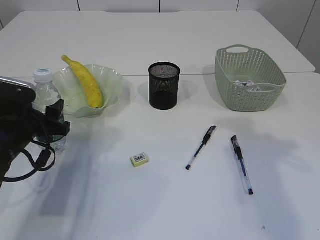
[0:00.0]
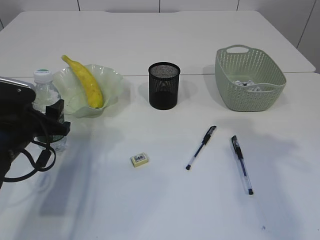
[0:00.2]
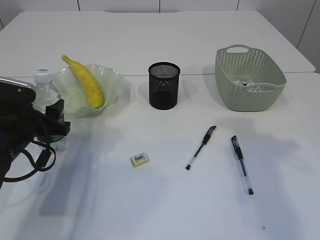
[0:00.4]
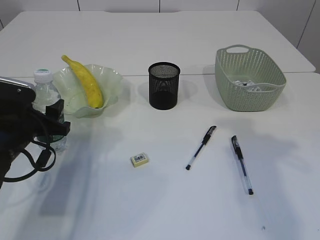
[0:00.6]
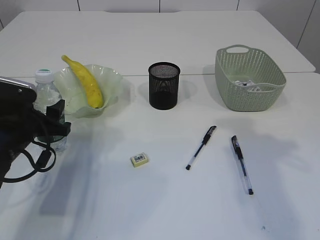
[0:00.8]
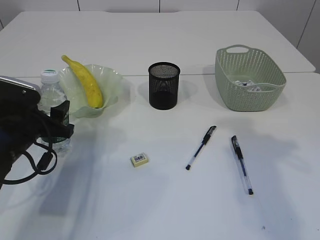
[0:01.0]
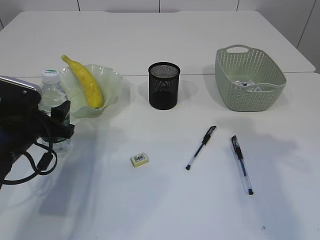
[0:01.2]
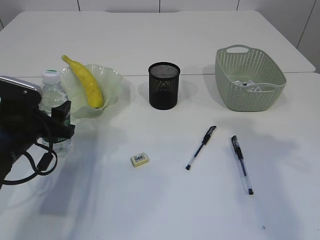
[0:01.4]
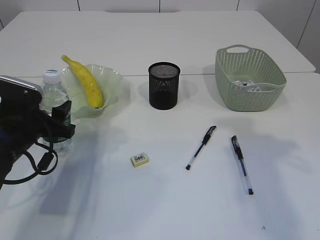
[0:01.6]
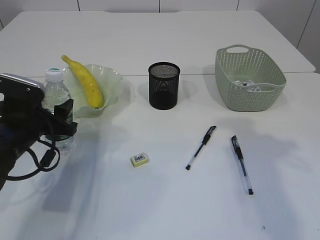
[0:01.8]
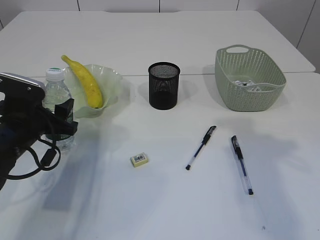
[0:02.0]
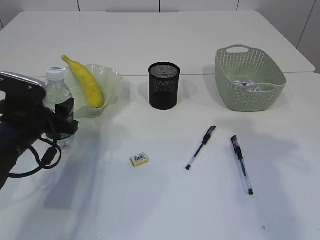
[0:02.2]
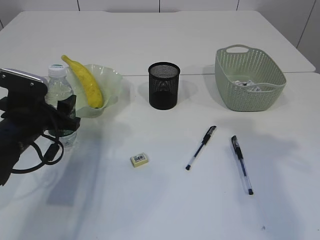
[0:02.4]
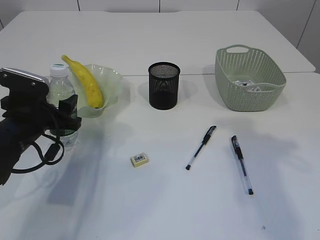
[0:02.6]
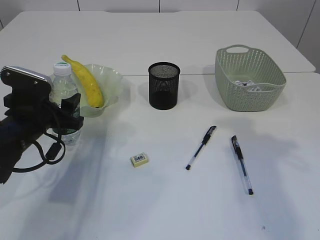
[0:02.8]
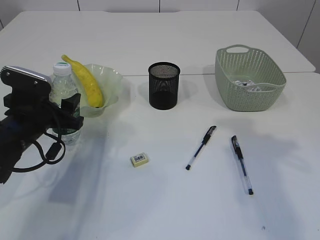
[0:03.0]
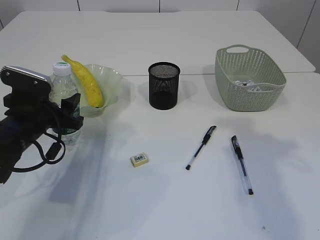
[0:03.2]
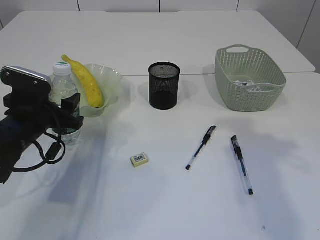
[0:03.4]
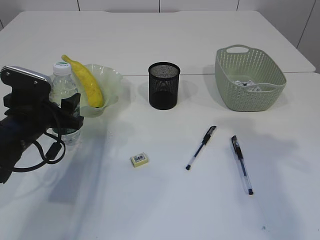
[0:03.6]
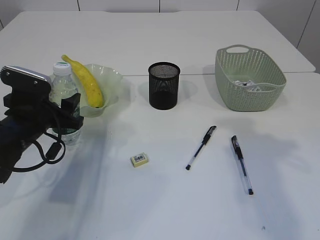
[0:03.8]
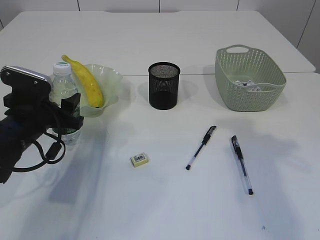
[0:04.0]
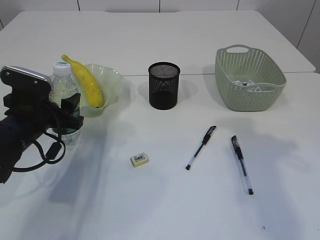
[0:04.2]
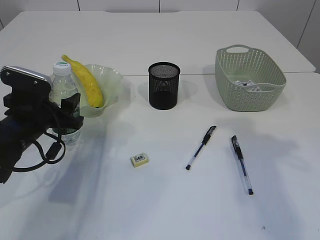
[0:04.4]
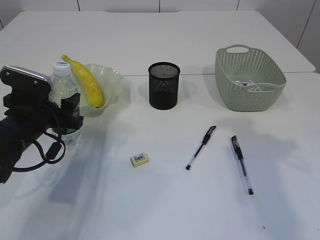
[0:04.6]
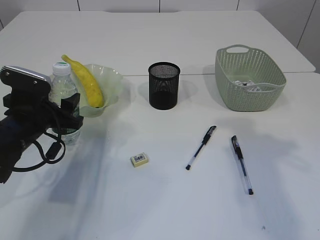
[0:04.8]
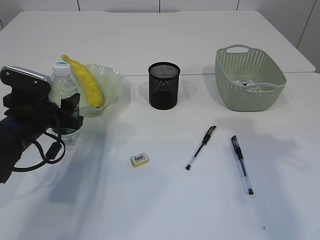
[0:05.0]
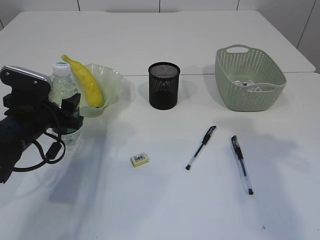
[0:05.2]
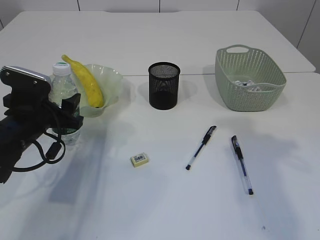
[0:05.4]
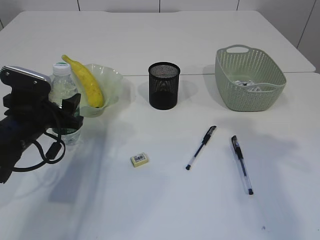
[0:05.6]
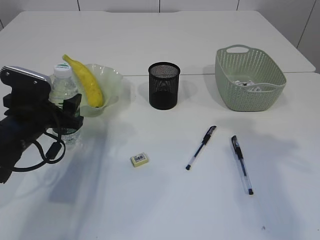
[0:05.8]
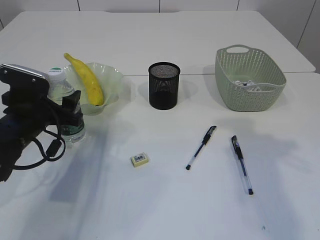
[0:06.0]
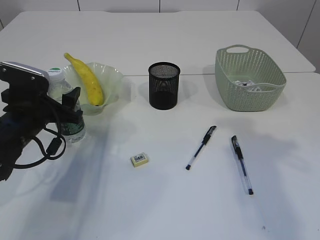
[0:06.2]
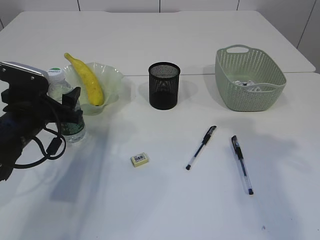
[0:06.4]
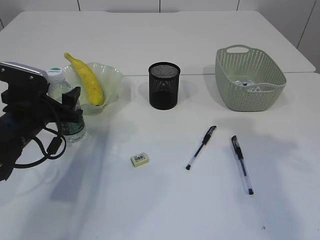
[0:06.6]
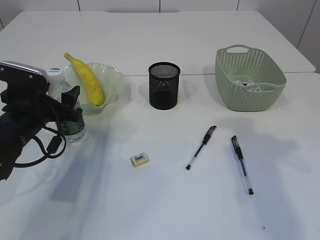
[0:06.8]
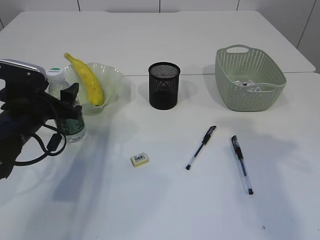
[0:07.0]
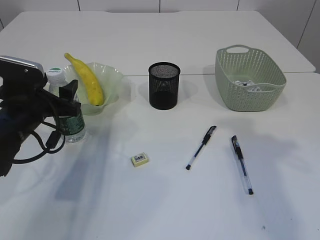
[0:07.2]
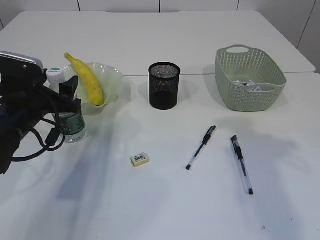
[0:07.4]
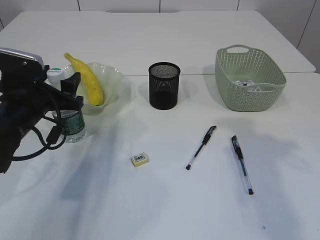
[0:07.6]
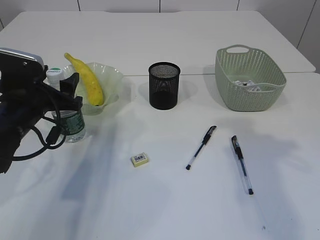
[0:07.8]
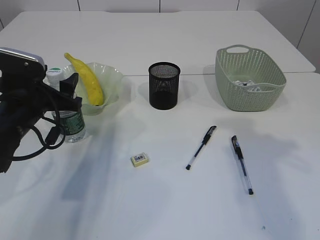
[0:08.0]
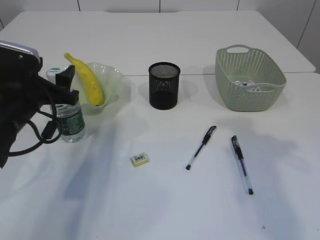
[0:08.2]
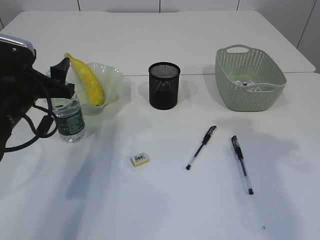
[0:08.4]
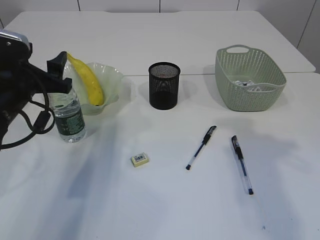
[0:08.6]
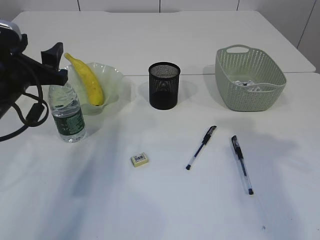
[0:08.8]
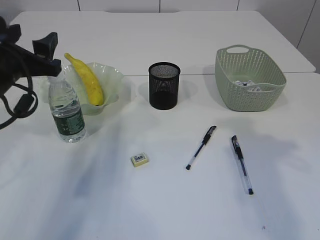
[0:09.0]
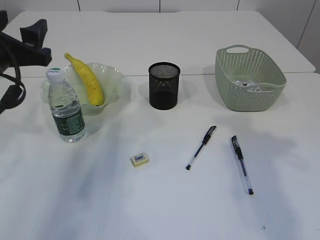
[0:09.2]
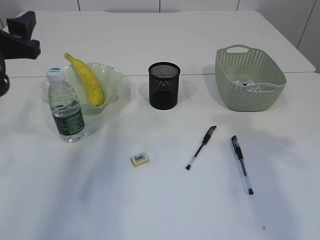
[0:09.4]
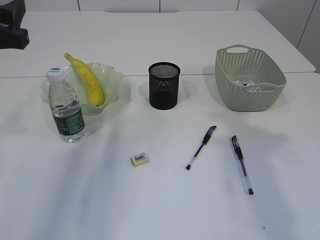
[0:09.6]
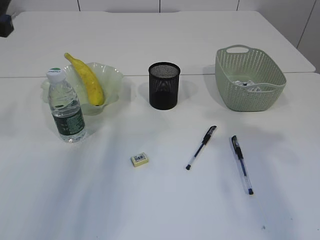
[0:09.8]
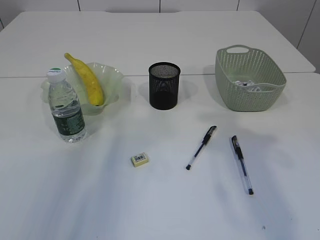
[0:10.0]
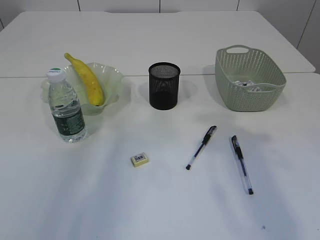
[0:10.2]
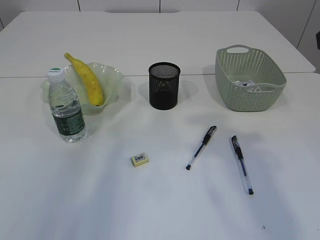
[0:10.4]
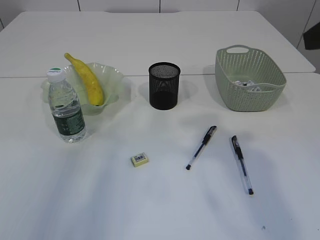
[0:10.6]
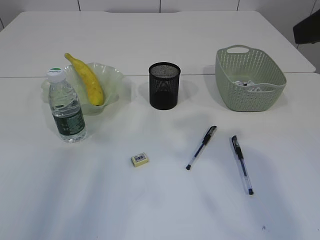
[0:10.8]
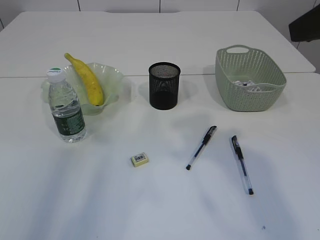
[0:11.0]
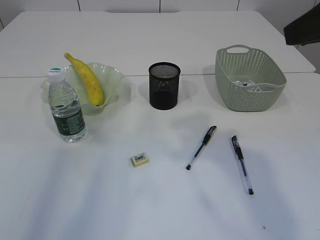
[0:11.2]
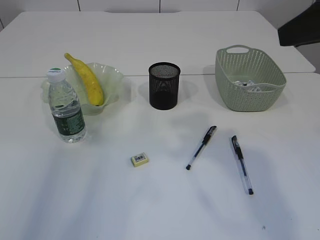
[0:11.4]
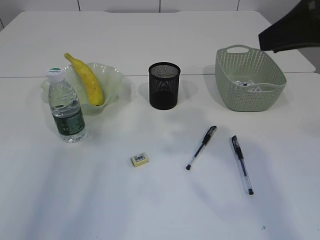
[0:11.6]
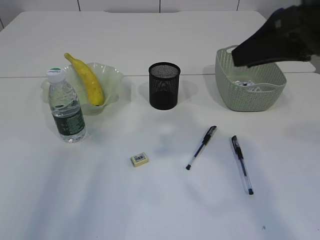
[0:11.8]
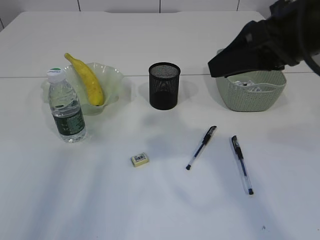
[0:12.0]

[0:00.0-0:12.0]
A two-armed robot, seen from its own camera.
Step, 0:00.0 to 0:09.0: Place the bottle.
0:00.0 to 0:01.6: Both grippers stay put.
0:01.6 to 0:03.0: The grippers move only a little.
0:03.0 to 0:06.0: Both grippers stay put.
0:06.0 to 0:07.6: The grippers move only a little.
0:07.6 to 0:09.0: The left gripper travels upward by approximately 5 cm.
0:09.0 to 0:10.4: The right gripper is displaced upward by about 5 cm; the left gripper moves upward and backward, roughly 15 cm.
0:10.4 to 0:12.0: The right gripper moves to the left, approximately 10 cm.

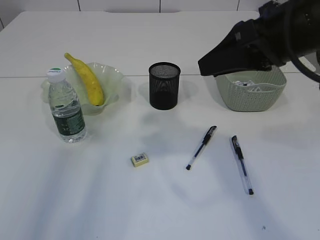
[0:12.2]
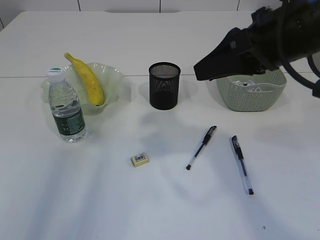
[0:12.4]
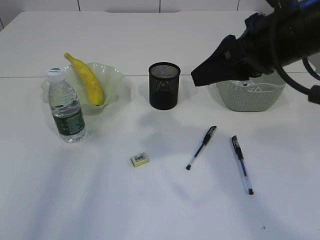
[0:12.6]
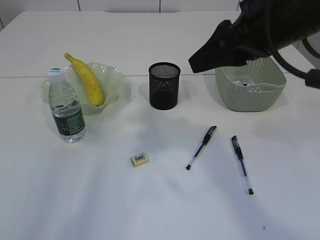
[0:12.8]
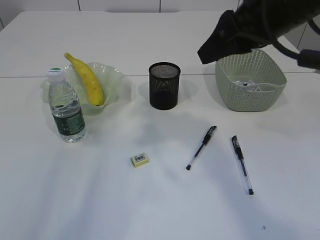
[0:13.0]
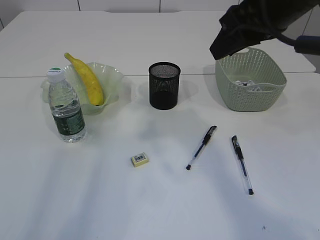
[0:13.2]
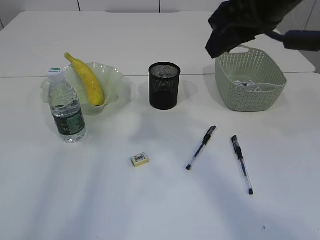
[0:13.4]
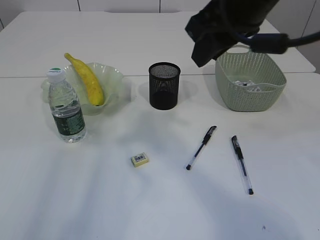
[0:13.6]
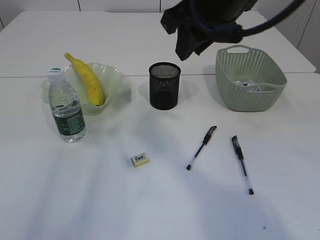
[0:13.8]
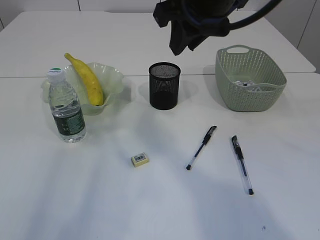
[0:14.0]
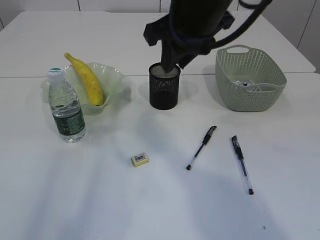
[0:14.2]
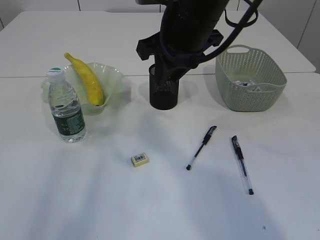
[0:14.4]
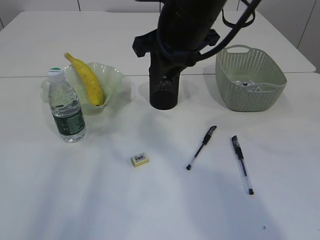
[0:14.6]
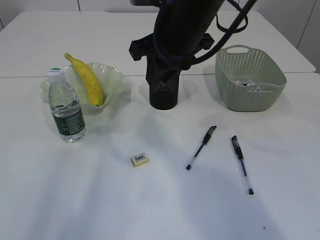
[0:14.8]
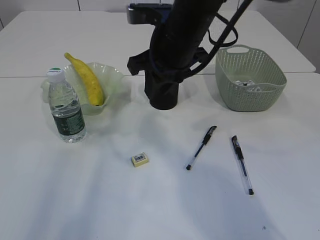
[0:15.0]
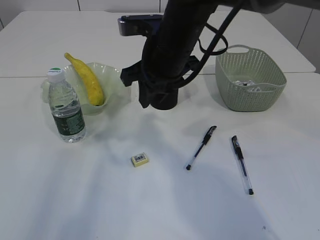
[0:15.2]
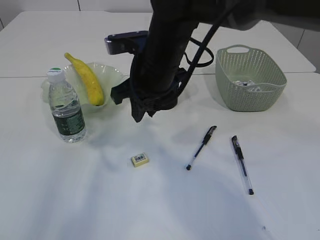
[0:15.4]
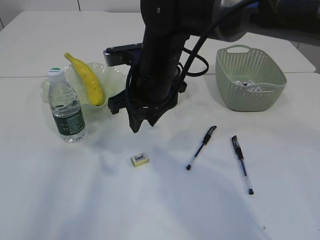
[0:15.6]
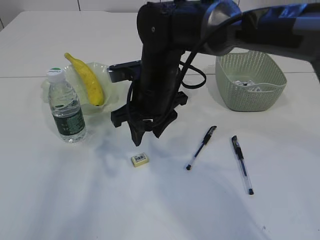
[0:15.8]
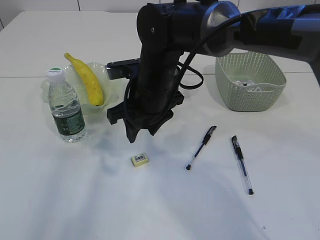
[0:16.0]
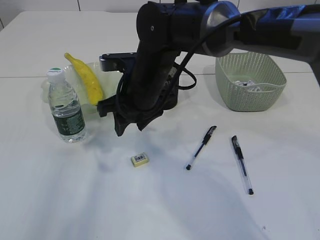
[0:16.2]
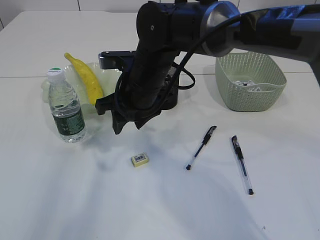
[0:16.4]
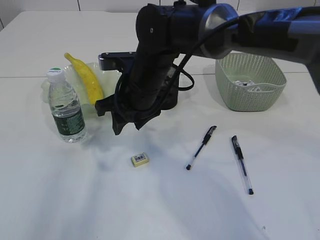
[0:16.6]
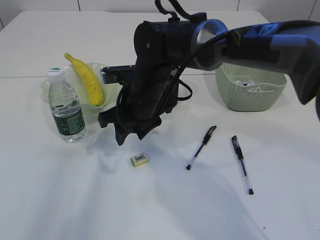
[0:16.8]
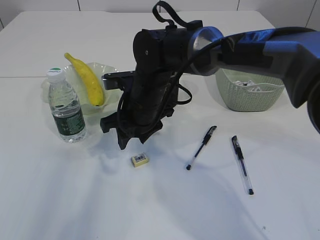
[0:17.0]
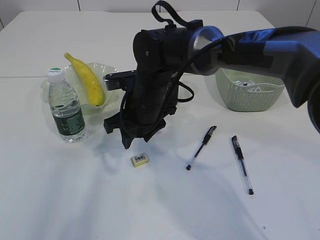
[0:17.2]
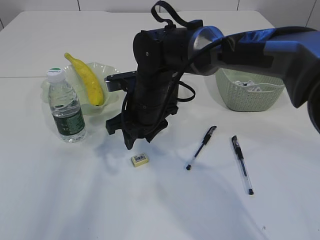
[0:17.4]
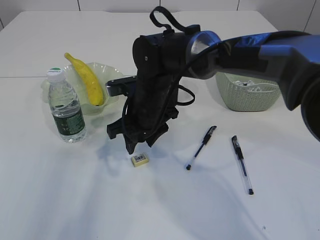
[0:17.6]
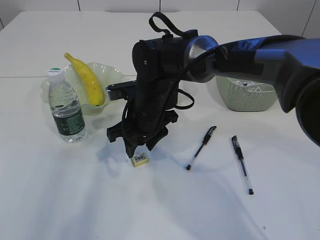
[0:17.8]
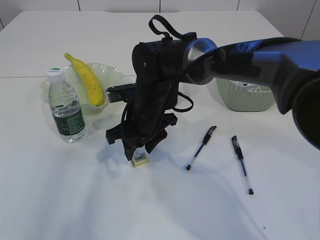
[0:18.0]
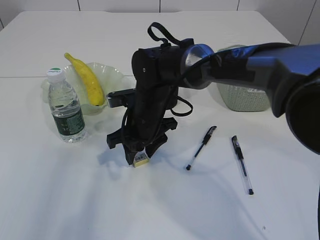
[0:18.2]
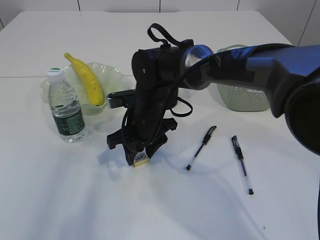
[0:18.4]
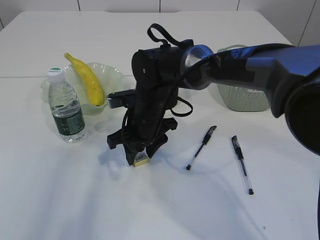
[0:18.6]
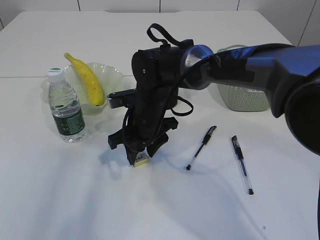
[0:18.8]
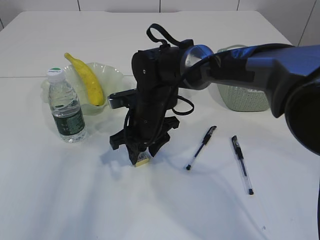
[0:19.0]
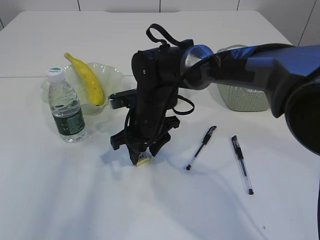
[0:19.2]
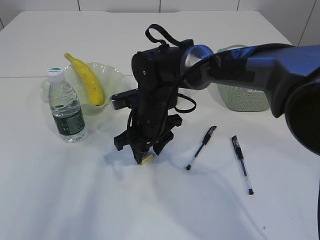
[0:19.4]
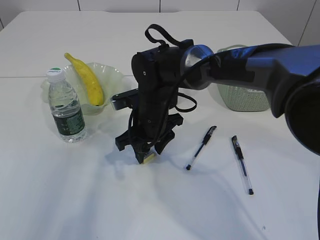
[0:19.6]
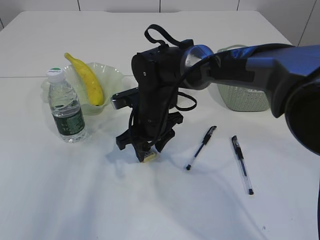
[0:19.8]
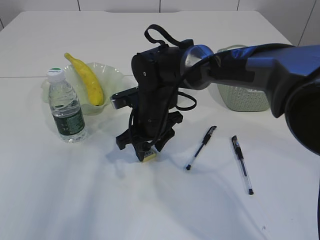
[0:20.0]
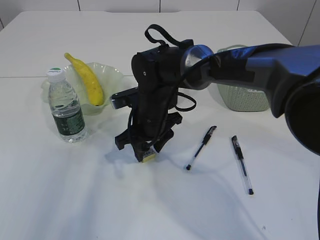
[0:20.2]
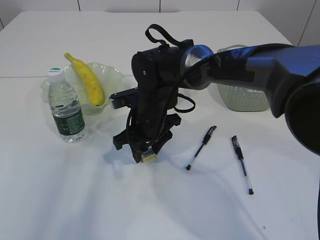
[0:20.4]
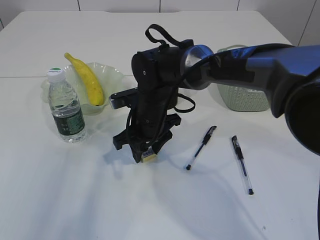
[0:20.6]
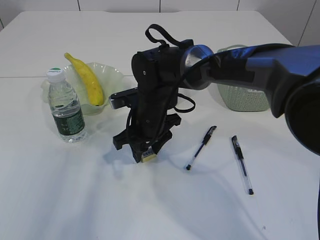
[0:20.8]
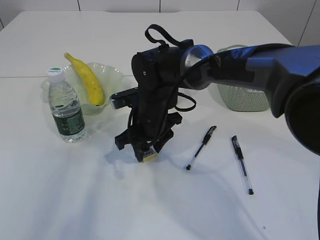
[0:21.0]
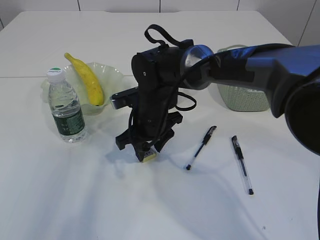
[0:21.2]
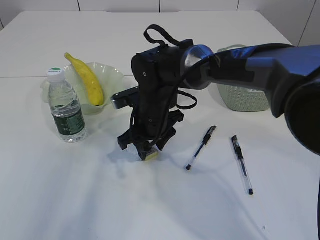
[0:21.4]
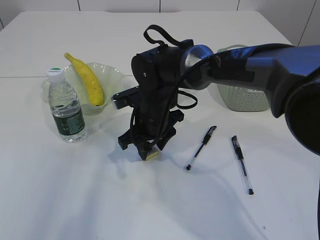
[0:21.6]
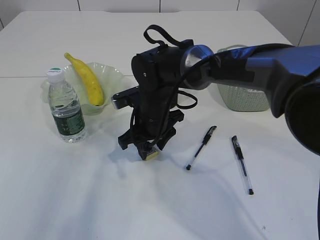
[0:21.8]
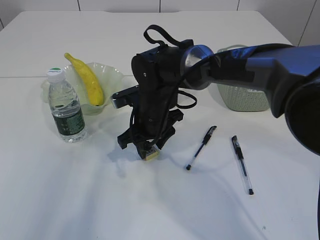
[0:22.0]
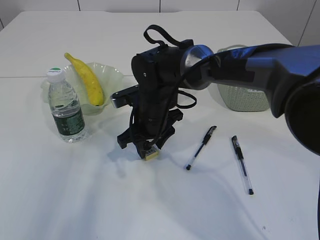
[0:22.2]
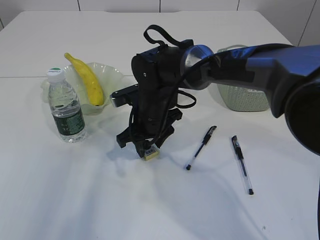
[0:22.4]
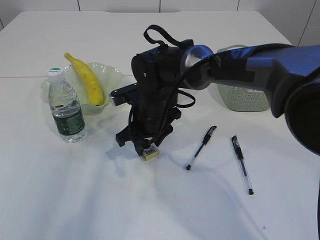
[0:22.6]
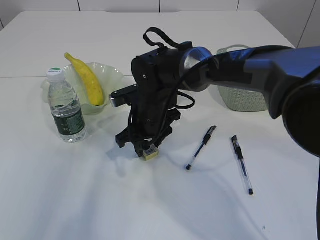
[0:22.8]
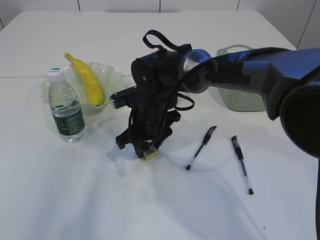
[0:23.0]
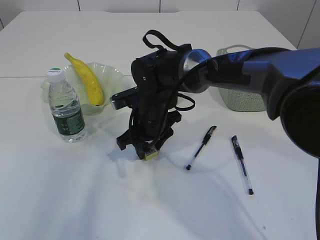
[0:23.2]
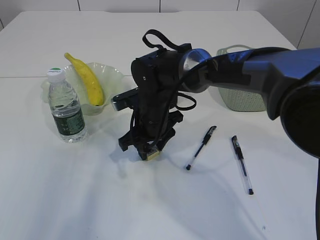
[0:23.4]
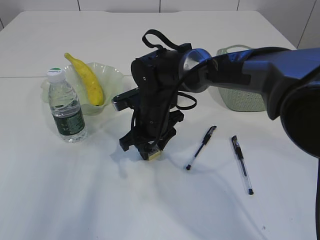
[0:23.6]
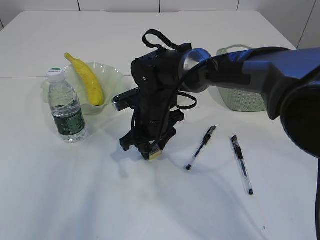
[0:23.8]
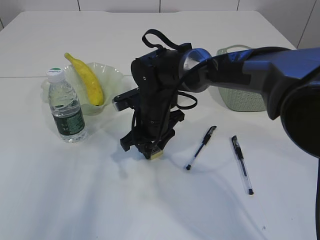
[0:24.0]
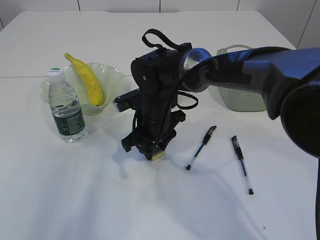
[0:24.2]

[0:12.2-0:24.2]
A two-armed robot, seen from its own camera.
0:12.2 to 0:13.8: The right gripper is displaced to the left and forward by roughly 10 cm.
0:13.8 to 0:15.2: The right gripper is displaced downward and to the left by some 10 cm.
0:15.2 to 0:16.6: The right gripper shifts approximately 5 cm downward.
0:16.6 to 0:18.2: The right gripper heads downward, covering about 5 cm.
0:18.2 to 0:19.8: The grippers make only small movements.
0:19.8 to 0:22.6: The two grippers keep their place.
0:22.6 to 0:24.2: The grippers make only small movements.
